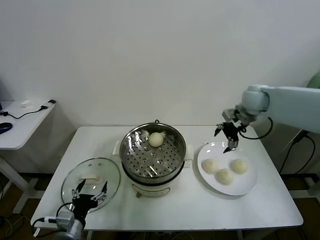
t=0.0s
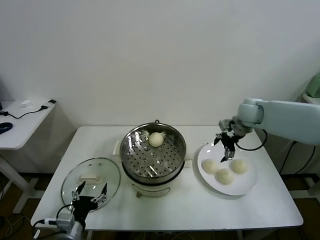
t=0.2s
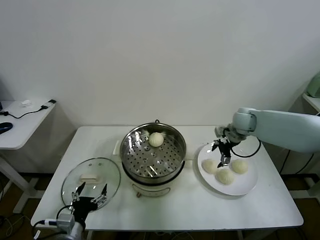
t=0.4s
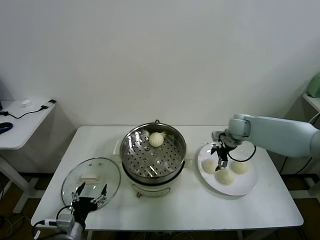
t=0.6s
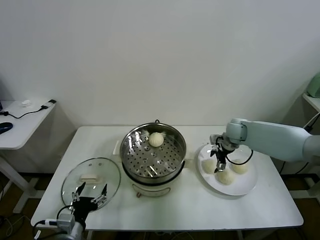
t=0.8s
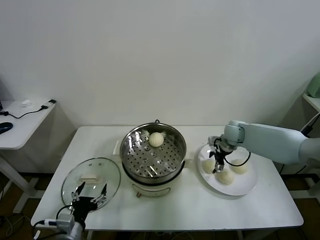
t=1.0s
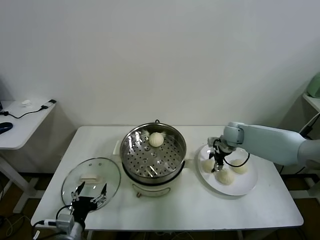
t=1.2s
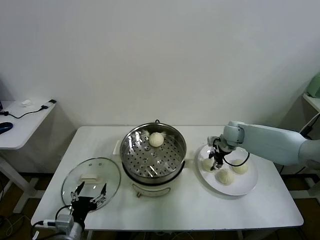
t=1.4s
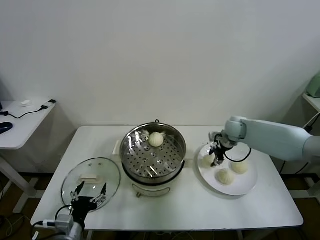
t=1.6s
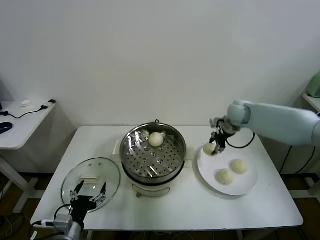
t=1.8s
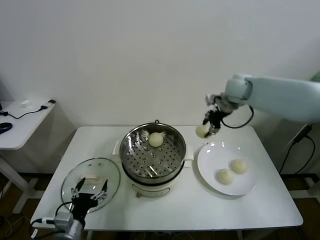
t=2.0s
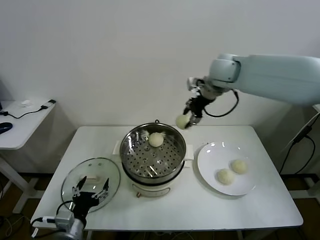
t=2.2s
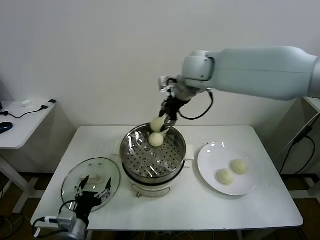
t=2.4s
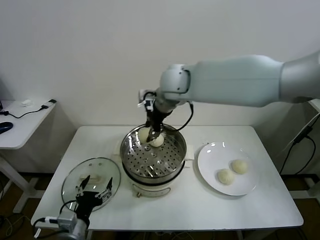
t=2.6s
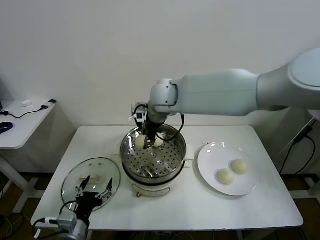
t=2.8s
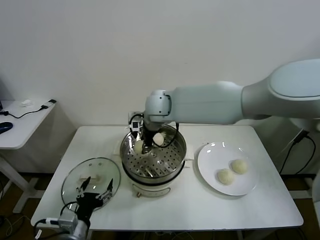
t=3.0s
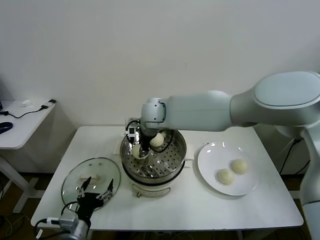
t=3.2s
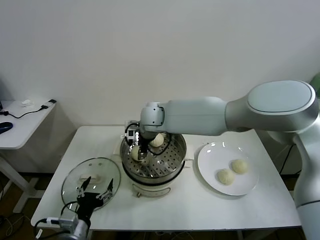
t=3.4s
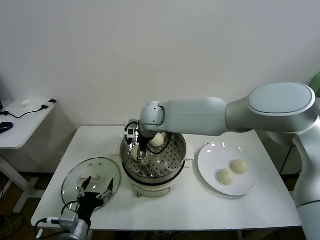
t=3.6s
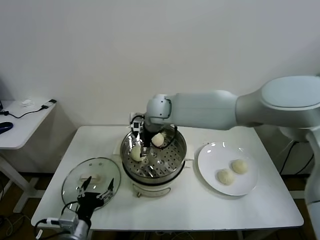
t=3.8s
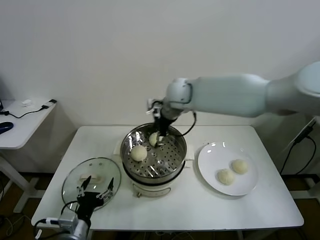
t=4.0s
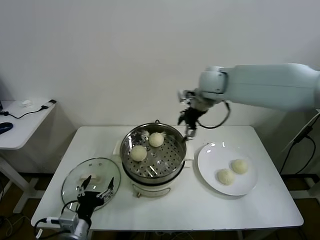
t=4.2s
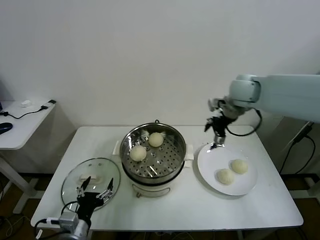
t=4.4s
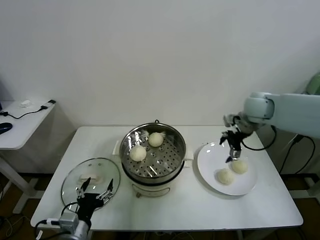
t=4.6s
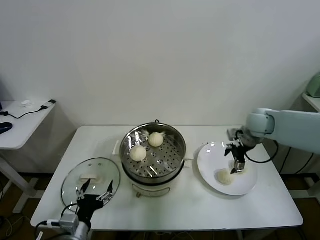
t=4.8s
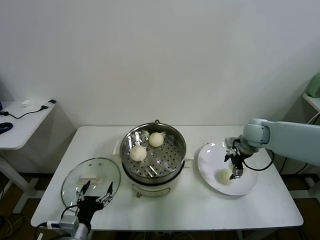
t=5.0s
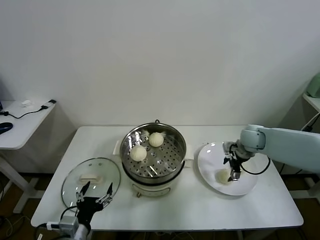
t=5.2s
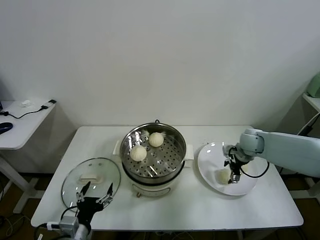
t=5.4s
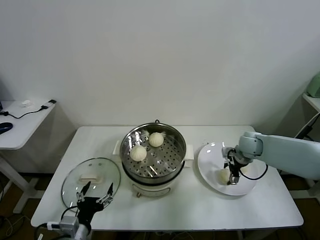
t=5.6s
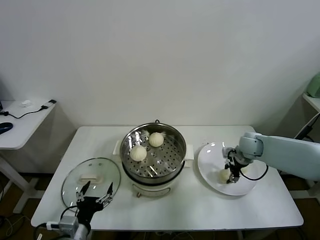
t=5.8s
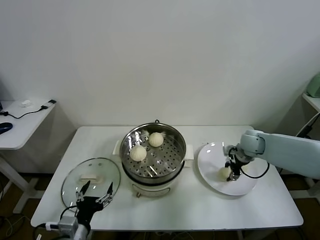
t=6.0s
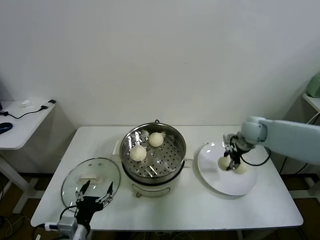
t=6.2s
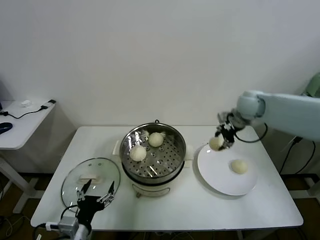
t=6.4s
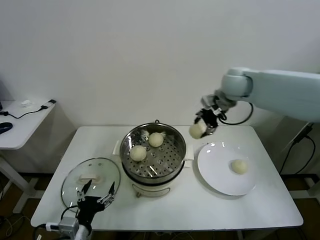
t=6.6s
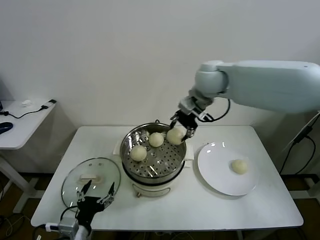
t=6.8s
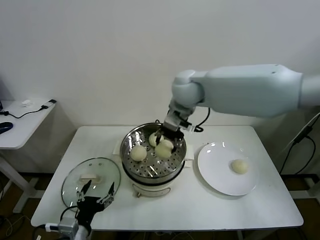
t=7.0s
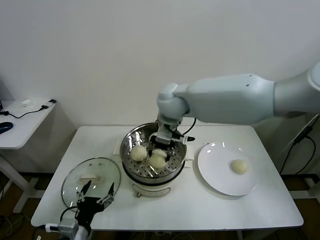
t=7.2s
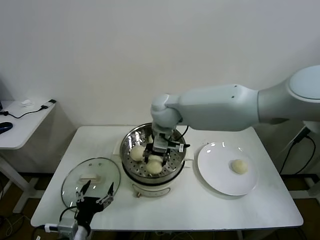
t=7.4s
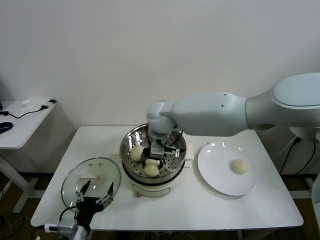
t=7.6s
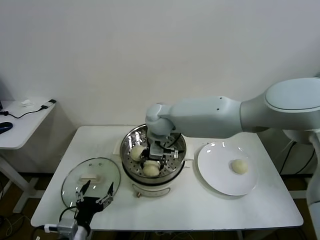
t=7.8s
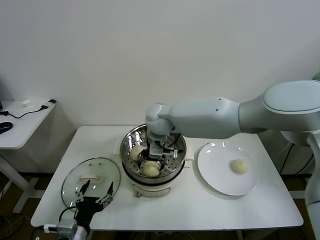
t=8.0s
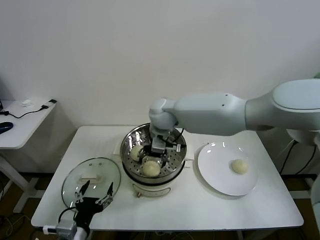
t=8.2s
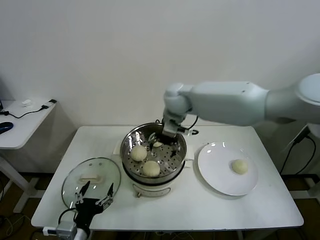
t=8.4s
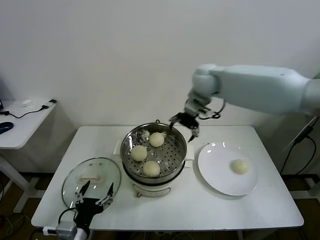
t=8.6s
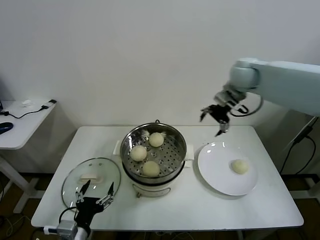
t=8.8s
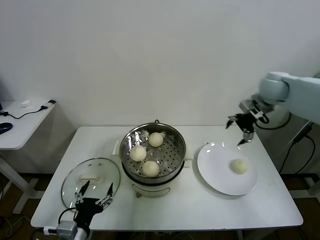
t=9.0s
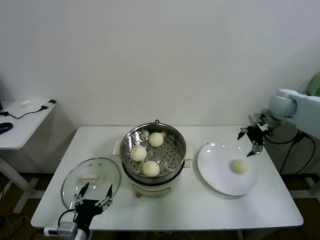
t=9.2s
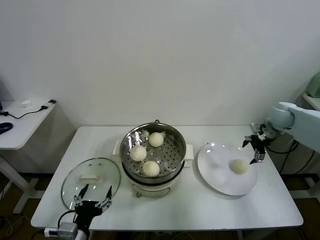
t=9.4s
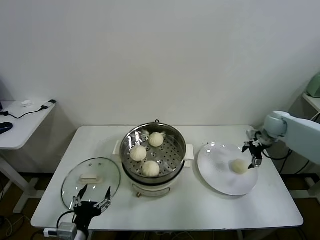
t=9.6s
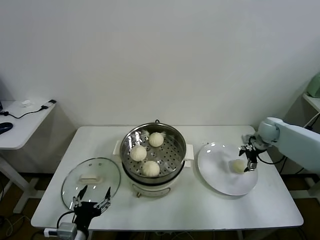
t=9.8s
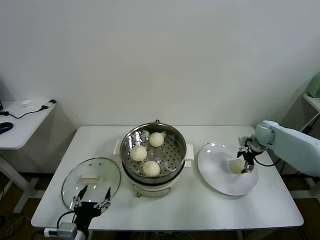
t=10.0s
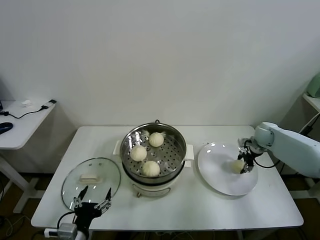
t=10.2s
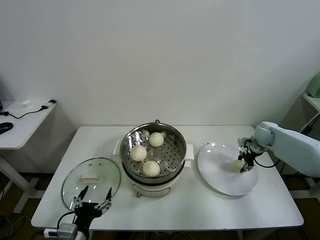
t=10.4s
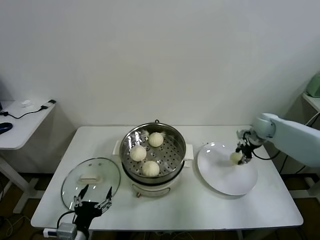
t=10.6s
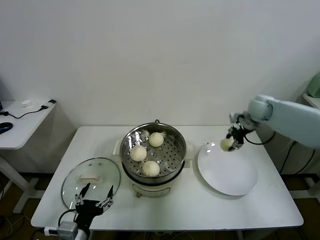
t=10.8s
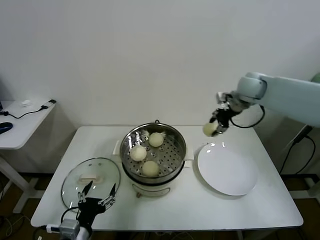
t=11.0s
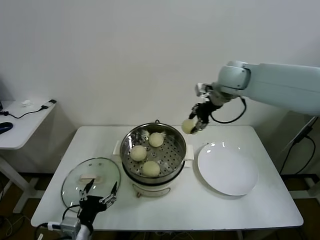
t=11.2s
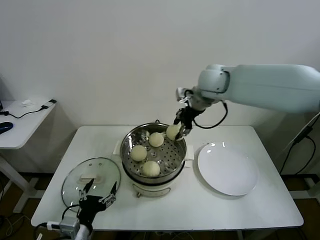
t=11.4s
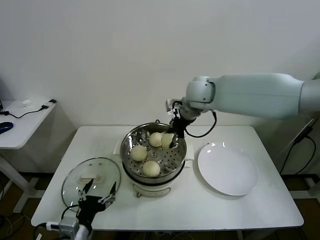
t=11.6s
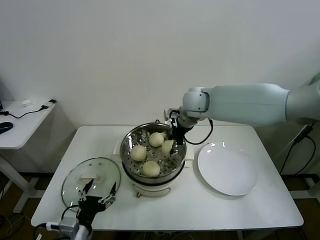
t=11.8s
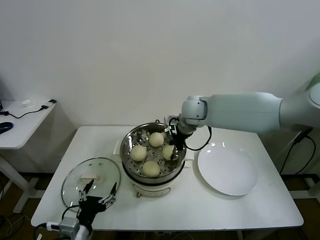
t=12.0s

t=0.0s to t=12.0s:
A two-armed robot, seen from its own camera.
Task of the whole recording: take steamed baozi put them in steamer.
Step, t=1.4s to t=3.4s: Place the baozi on the steamer with right gripper.
Step, t=3.8s to t=5.6s: Grasp the baozi in the plate with right gripper.
Step, t=5.8s to t=7.8s: Place the baozi on the steamer with right gripper.
Step, t=8.0s to t=10.2s: Grasp the baozi in the plate with right gripper.
t=0.0s to t=1.6s: The right gripper shifts about 10 cm downward, and closes up.
t=1.6s to t=3.0s: The right gripper moves to the left, some 30 cm.
t=3.0s to t=4.4s: The right gripper goes approximately 30 cm to the right, and opens its fingers.
t=4.4s to t=6.0s: The right gripper shifts roughly 20 cm downward, and closes.
t=6.0s to t=7.6s: The right gripper goes roughly 35 cm to the left.
t=7.6s to t=9.0s: The right gripper heads to the right, covering approximately 40 cm, and opens its fingers.
t=9.0s to t=10.4s: The right gripper shifts some 20 cm downward, and closes its fingers.
t=10.4s to t=12.0s: The right gripper heads to the left and upward, covering approximately 35 cm.

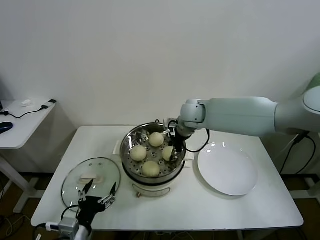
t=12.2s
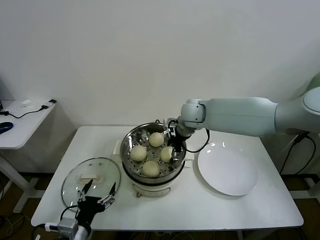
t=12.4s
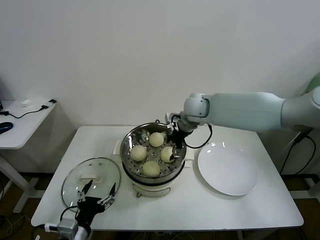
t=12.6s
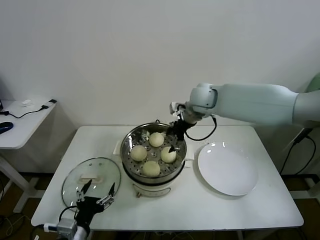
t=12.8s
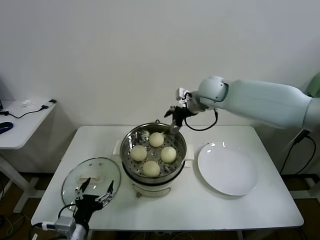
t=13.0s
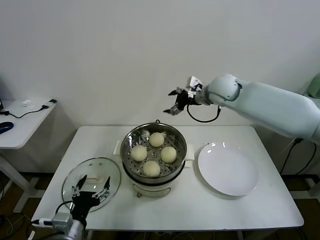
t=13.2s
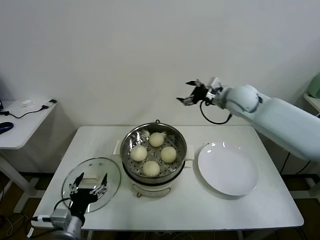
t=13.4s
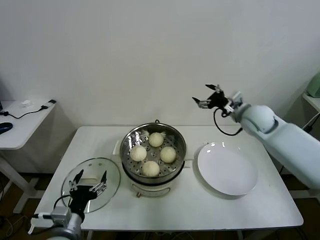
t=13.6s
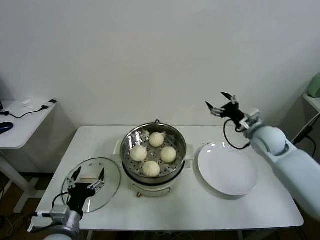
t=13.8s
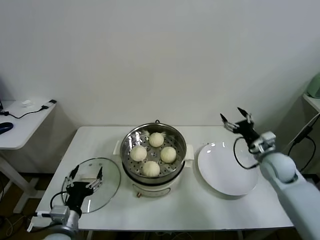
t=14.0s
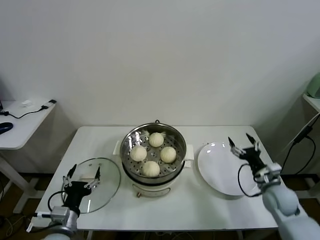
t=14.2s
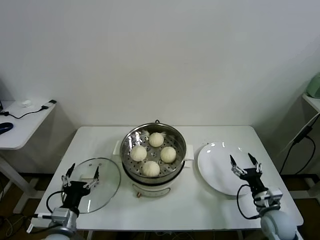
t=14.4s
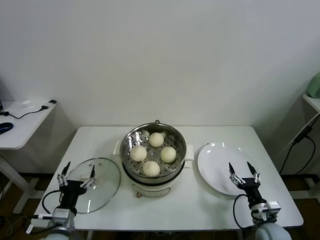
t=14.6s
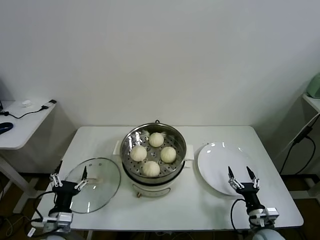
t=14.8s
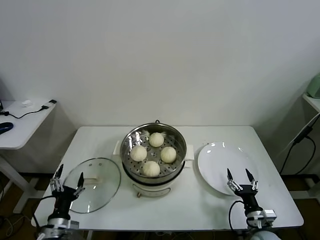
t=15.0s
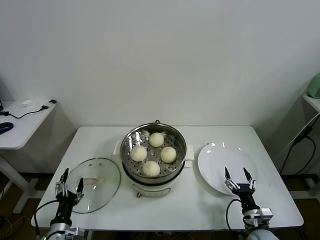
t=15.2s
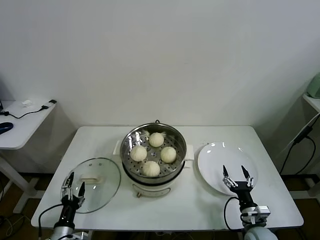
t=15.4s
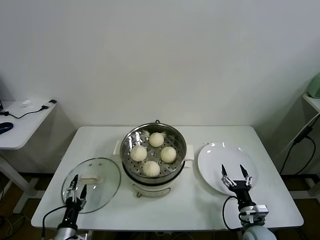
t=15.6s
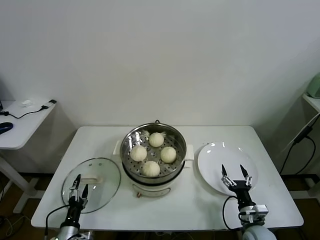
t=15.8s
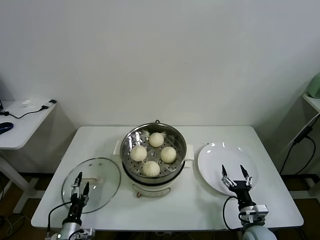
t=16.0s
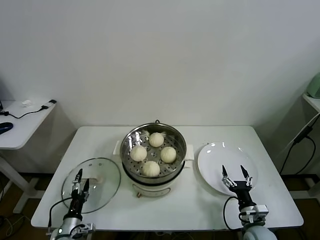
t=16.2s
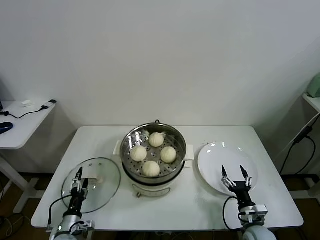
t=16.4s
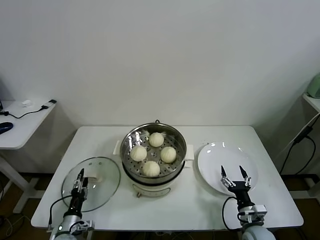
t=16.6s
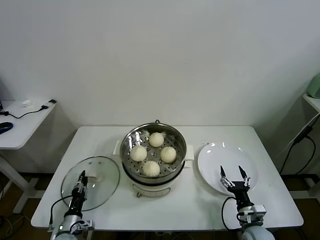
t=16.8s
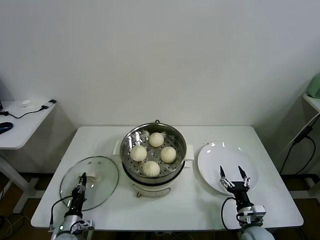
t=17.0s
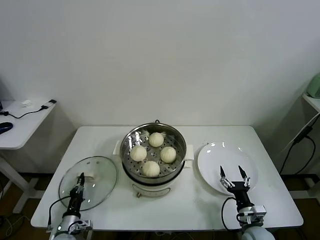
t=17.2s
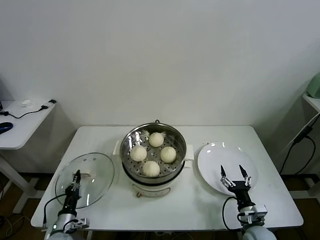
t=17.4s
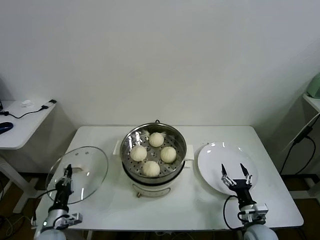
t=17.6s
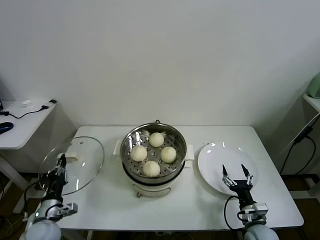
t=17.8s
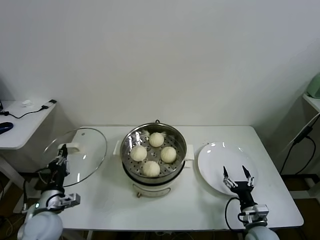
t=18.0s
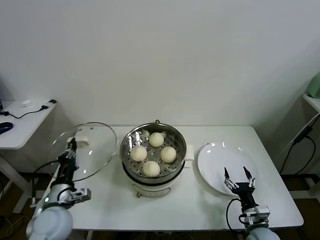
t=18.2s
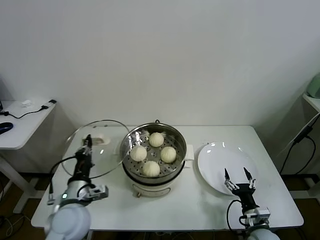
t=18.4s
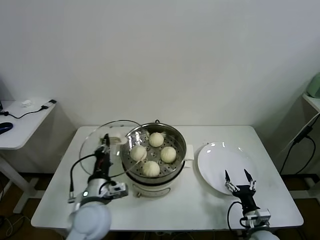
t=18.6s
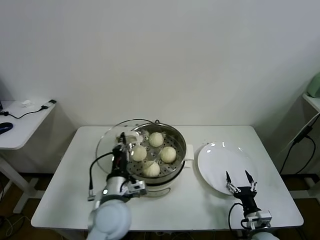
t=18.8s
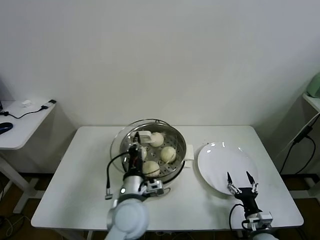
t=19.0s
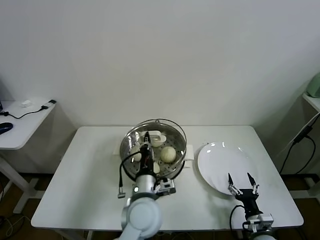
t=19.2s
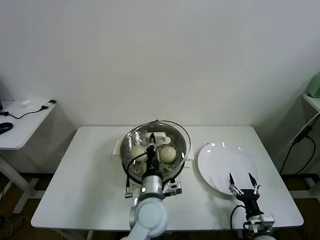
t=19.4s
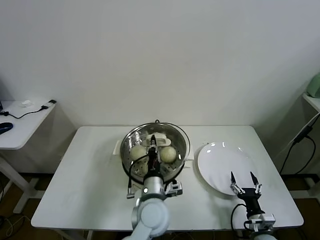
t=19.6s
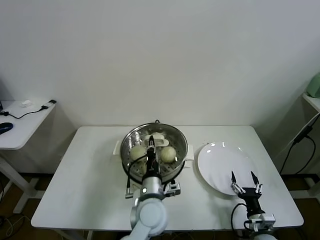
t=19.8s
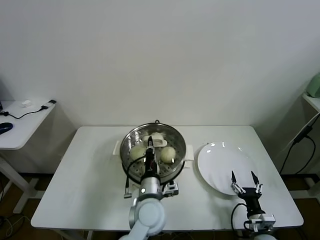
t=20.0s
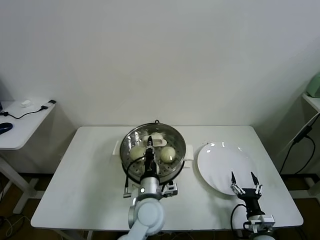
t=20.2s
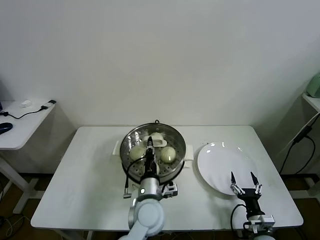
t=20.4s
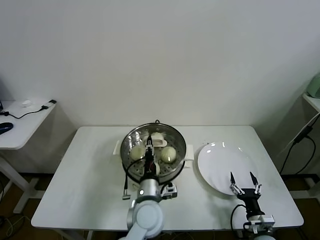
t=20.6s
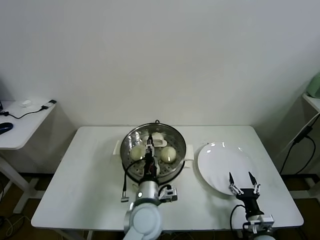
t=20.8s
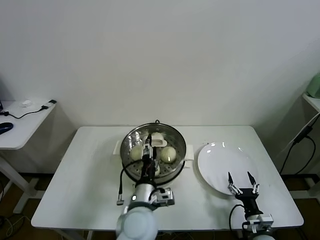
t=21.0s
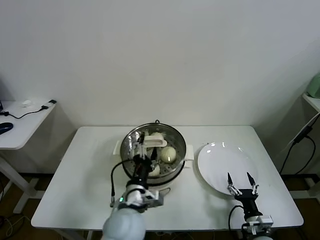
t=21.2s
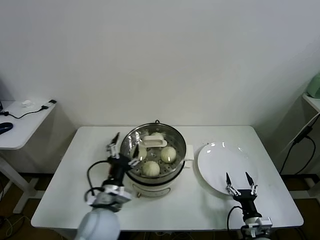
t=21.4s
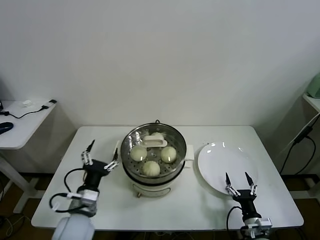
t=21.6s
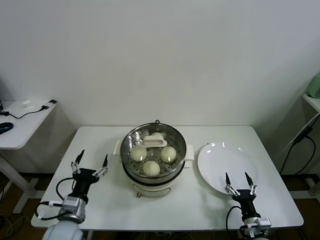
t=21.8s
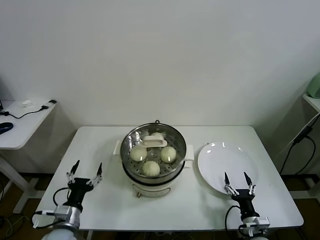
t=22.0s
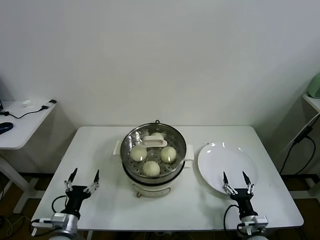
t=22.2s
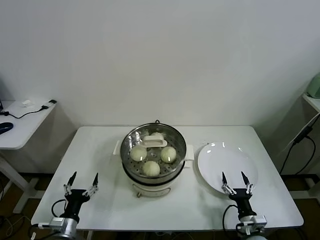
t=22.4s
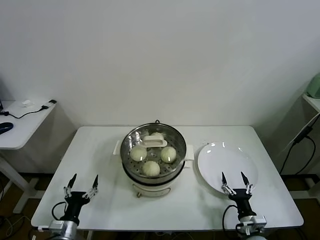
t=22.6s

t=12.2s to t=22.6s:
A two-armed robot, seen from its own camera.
Task of the whole recording: take steamed baozi put them in steamer.
Step, t=12.6s to t=17.0s: Grasp the pot lid with left gripper.
Step, t=17.2s to t=20.4s: Place the pot lid on the steamer with left gripper.
t=12.2s to t=13.6s: The right gripper goes some 20 cm to the right, and opens.
t=13.6s to t=15.2s: The right gripper moves downward and backward, approximately 40 cm. The left gripper shifts some 15 cm downward and to the left.
t=15.2s to t=16.6s: The left gripper goes roughly 10 cm downward.
t=16.6s to t=18.2s: The left gripper goes about 20 cm upward, and closes up.
t=18.2s to t=19.6s: The left gripper shifts approximately 30 cm to the right.
t=19.6s to t=21.2s: The left gripper heads to the left, covering roughly 5 cm, and opens.
t=21.2s to t=22.6s: The left gripper heads to the left and downward, covering about 30 cm.
